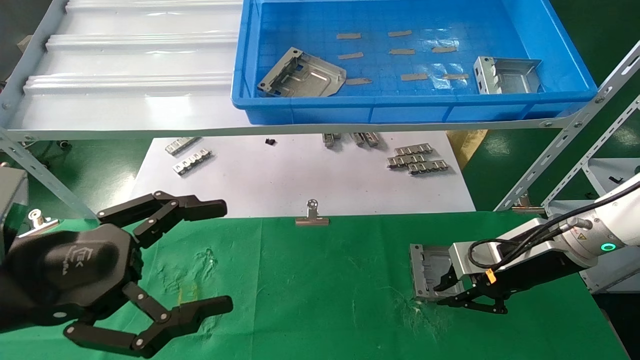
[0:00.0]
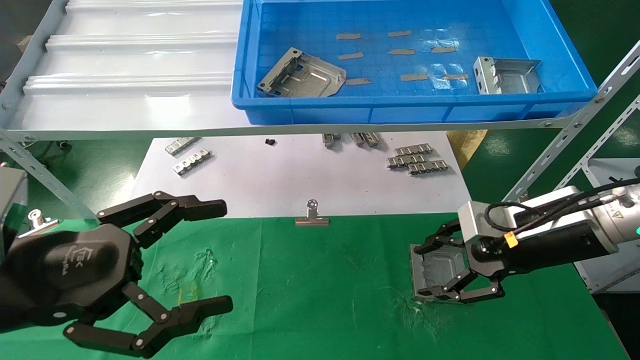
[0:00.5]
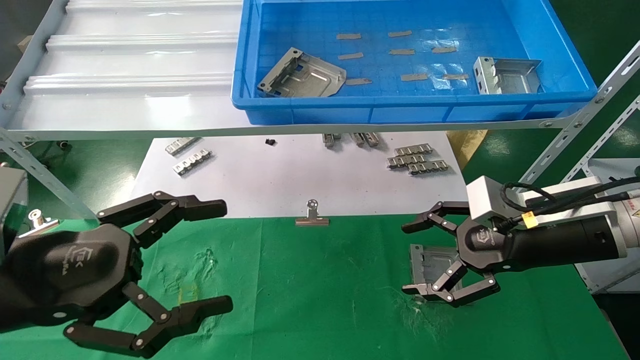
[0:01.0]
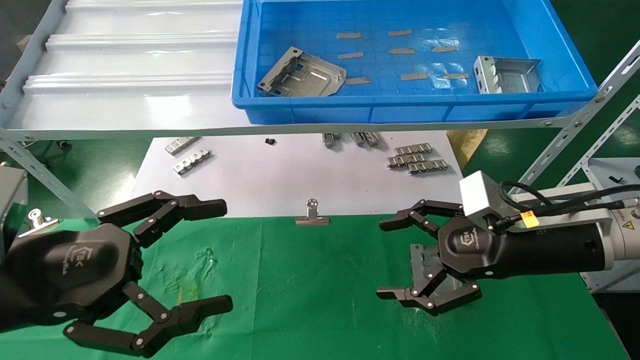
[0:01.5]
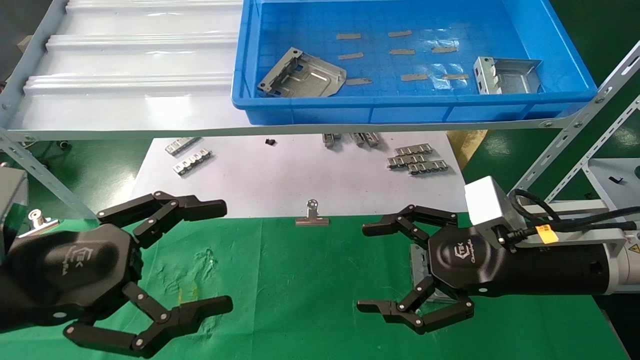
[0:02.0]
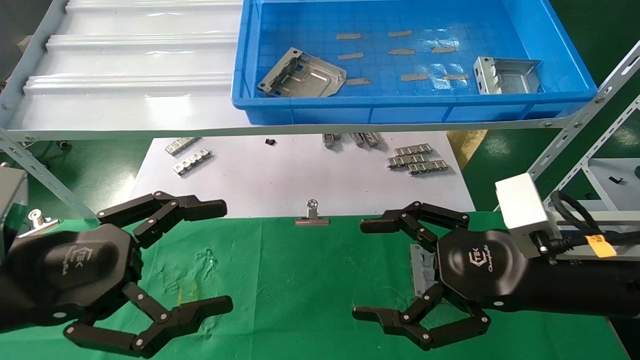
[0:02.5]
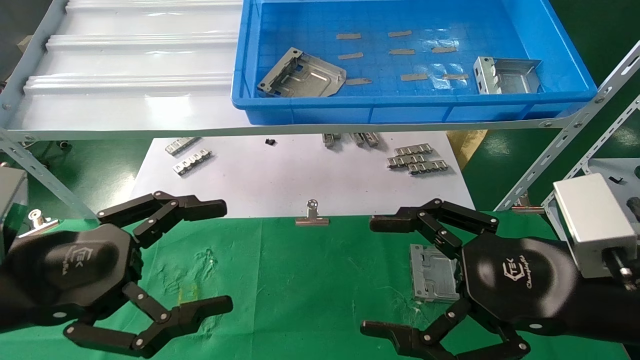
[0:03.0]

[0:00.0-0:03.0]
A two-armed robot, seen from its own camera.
Task of the whole recording: use the mechanical arm to pick up the parts and place them on the table.
0:00.0 to 0:01.5: The right gripper moves backward, roughly 5 cm, and opens up.
0:01.5 to 0:03.0: The right gripper heads backward, covering some 10 cm.
